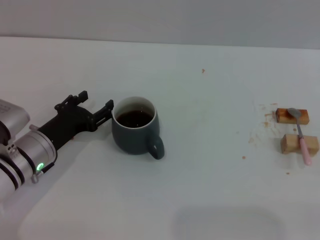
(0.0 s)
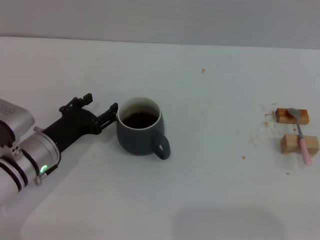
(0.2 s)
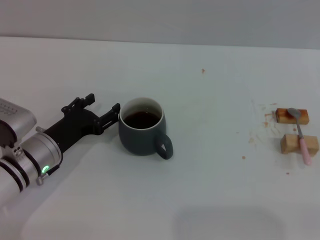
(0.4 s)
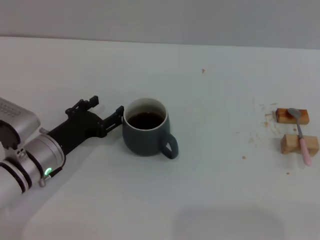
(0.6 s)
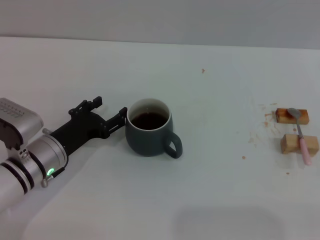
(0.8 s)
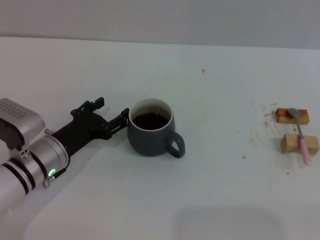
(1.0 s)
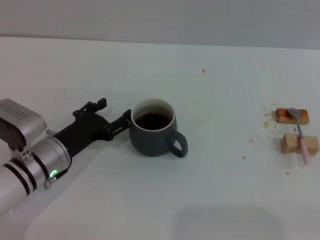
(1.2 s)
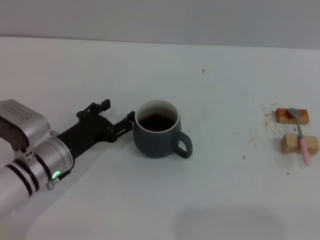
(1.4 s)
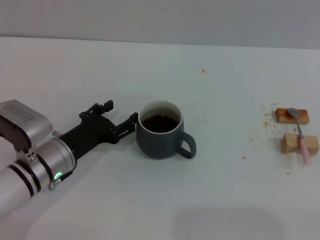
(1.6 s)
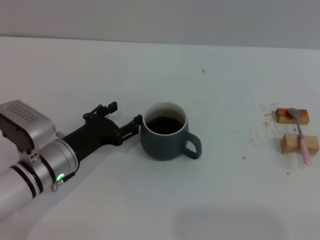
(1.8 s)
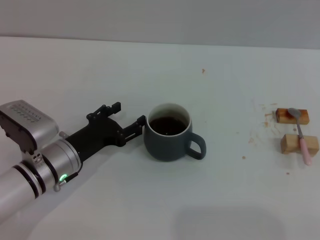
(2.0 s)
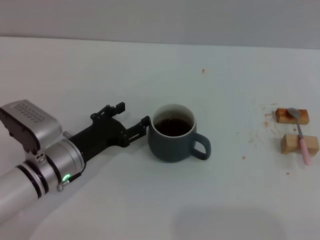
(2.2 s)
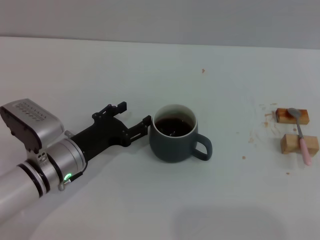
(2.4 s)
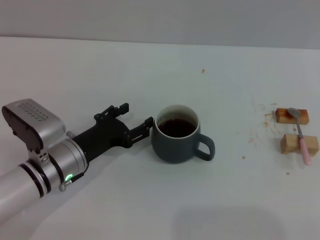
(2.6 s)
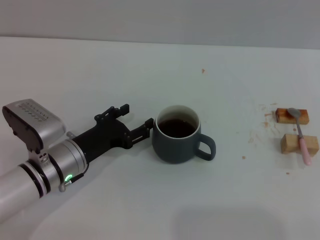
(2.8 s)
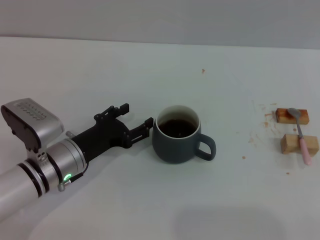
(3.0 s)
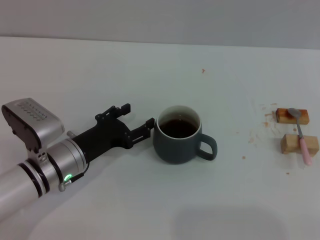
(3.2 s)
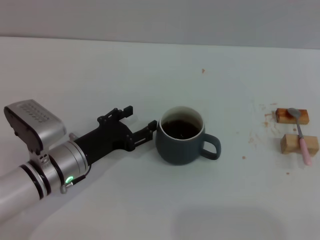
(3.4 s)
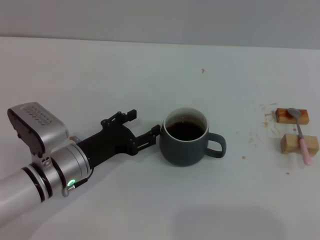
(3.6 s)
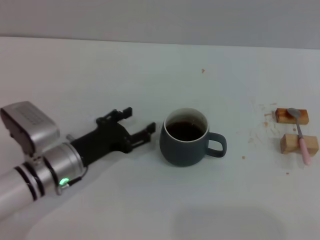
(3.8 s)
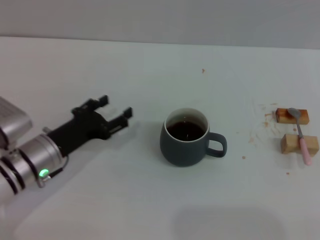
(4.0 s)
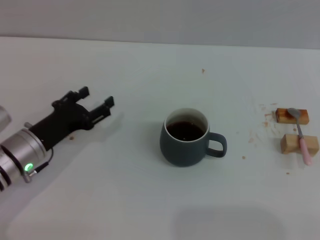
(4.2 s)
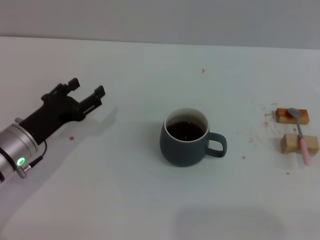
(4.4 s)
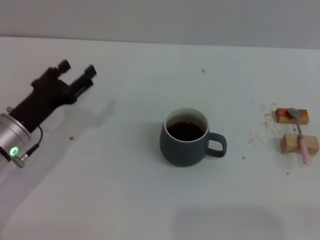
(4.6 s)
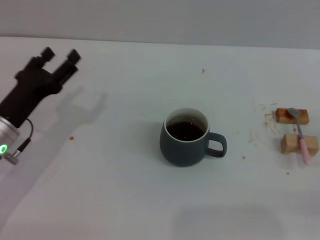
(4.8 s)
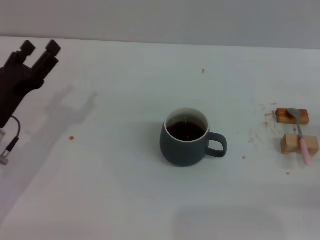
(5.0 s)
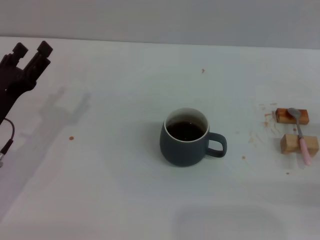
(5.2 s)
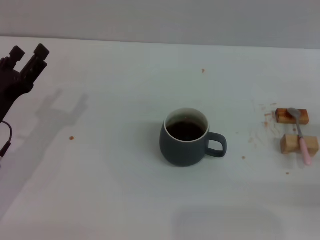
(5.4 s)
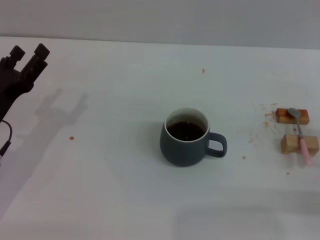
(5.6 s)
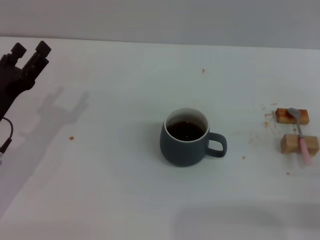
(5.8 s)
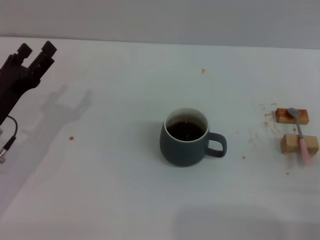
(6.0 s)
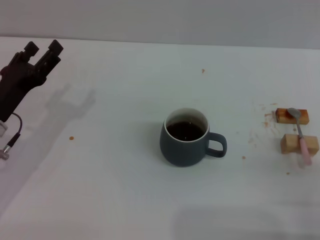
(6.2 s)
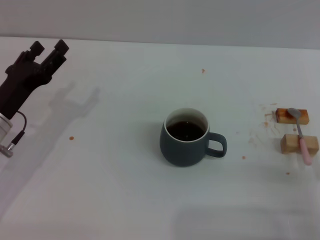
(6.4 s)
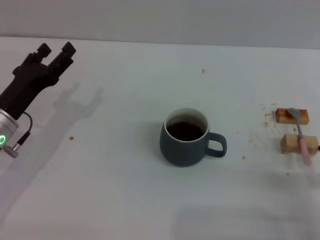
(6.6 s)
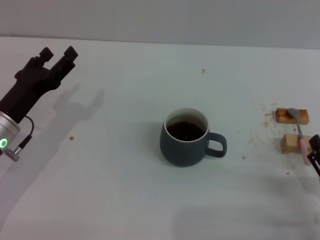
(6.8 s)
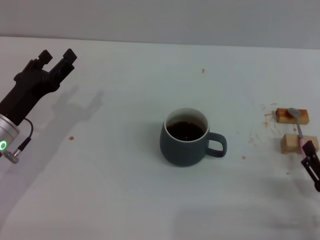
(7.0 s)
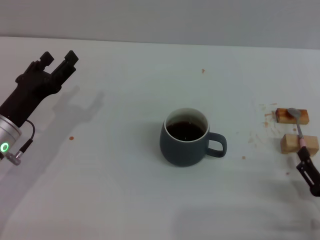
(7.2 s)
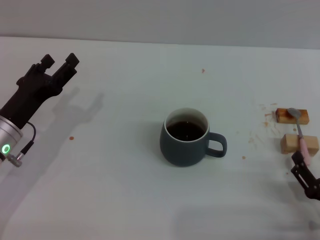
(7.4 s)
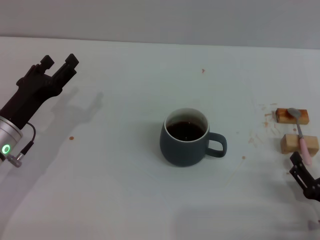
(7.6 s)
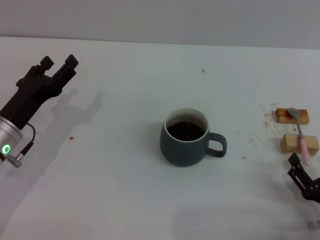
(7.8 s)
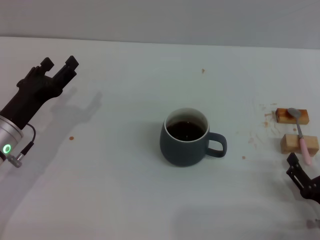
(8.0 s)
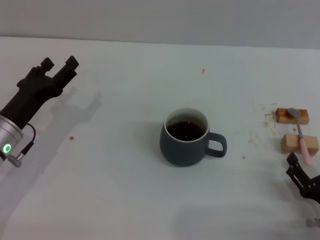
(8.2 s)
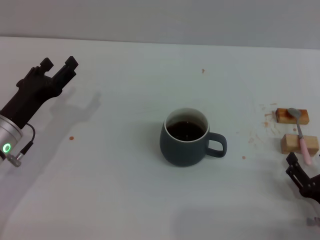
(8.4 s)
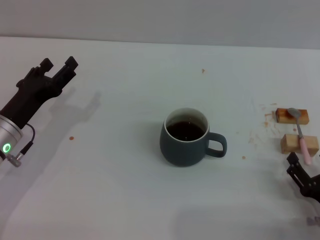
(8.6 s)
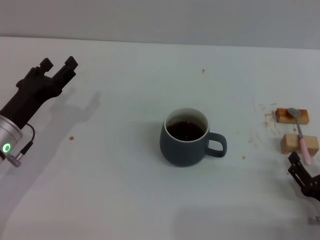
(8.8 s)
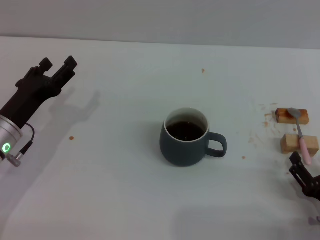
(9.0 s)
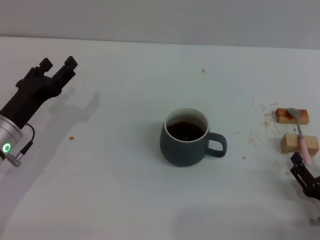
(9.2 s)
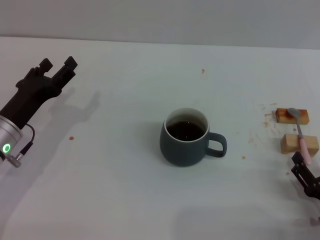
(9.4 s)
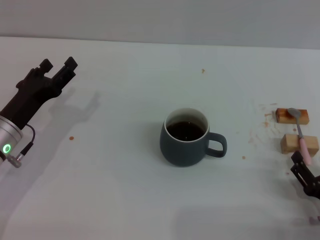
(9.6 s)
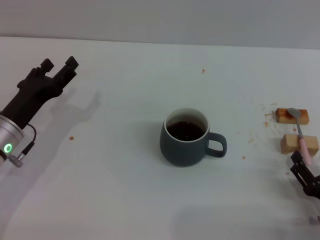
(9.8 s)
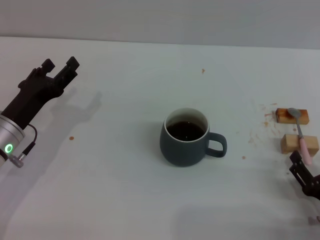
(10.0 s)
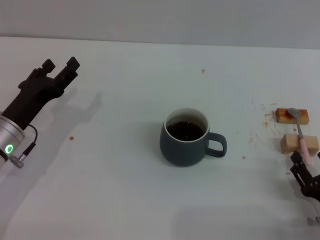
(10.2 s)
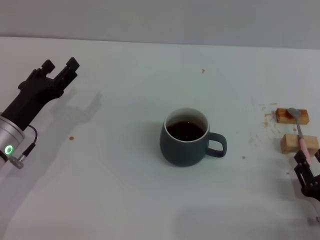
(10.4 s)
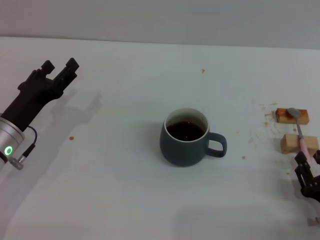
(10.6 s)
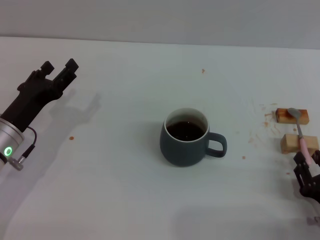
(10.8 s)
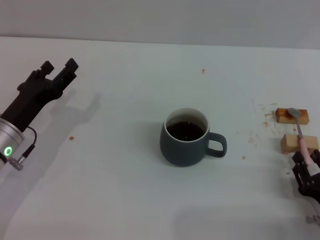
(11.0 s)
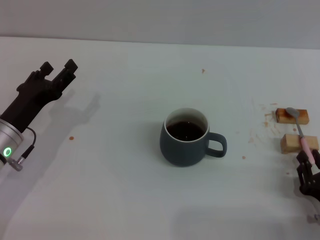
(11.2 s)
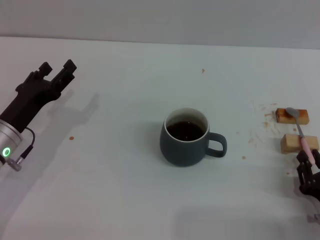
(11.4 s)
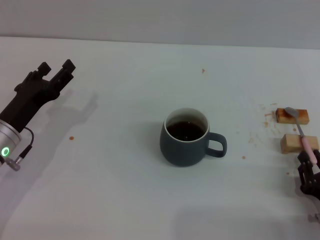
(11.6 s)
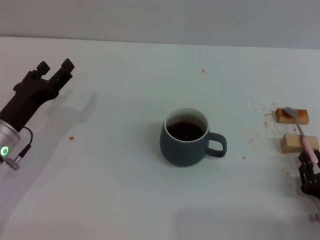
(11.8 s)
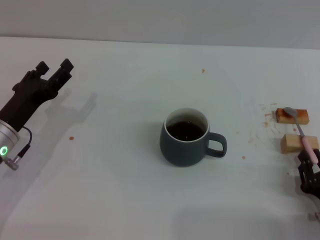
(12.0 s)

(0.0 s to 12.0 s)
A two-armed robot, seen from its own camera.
Task of the whole recording: Move the grey cup to the center, lift the pink spoon, stir it three times in the cup, and put the spoon into the cup.
Step, 0.0 s - 3.8 s: Move the cup with coffee to the center of view with the left gripper.
0.0 s - 3.0 s: There are only small adjustments of the grippers.
3.0 s - 4.4 s: The left gripper moves to the left, approximately 5 cm.
4.4 s - 6.0 s: The right gripper goes some 10 cm to the left.
6.0 s - 7.6 s: The right gripper is displaced to the left by about 5 cm.
7.6 s - 9.0 s: There are only small adjustments of the grippers.
9.0 s - 10.4 s: Neither gripper changes place.
10.4 s - 12.0 s: The right gripper closes up.

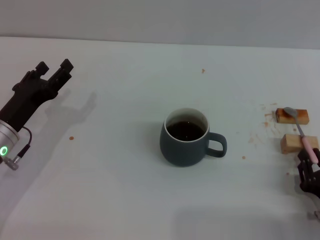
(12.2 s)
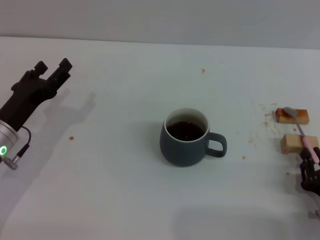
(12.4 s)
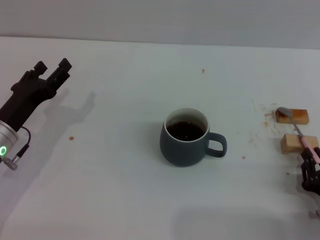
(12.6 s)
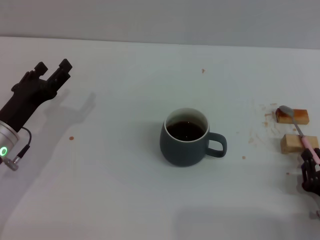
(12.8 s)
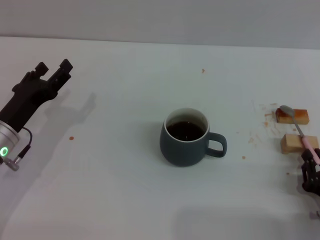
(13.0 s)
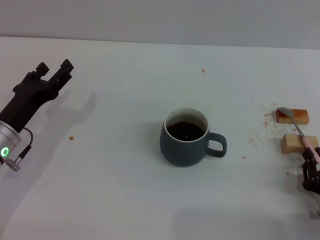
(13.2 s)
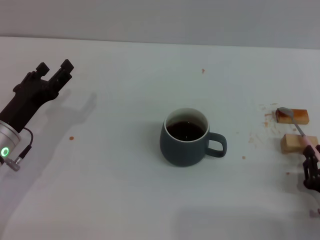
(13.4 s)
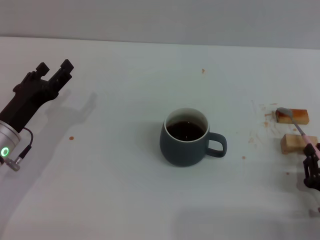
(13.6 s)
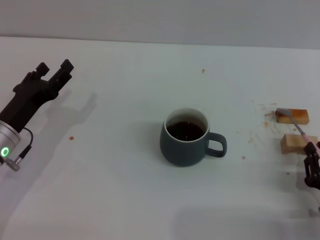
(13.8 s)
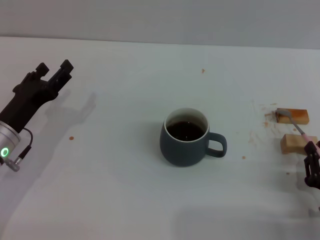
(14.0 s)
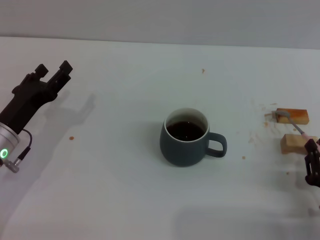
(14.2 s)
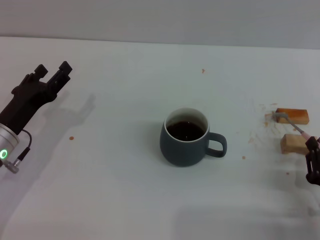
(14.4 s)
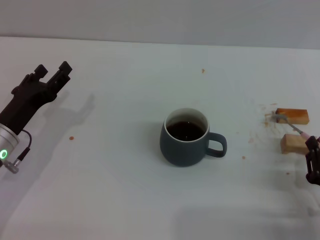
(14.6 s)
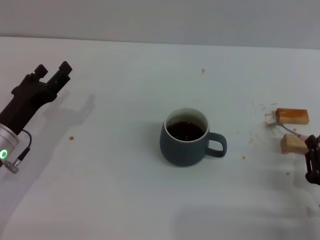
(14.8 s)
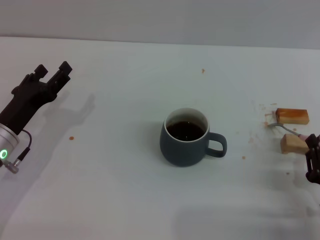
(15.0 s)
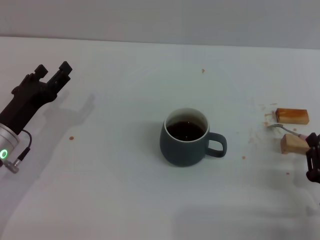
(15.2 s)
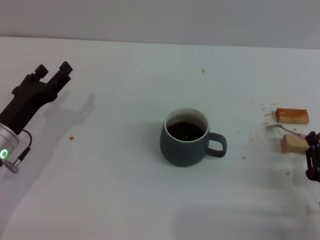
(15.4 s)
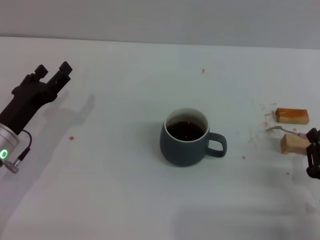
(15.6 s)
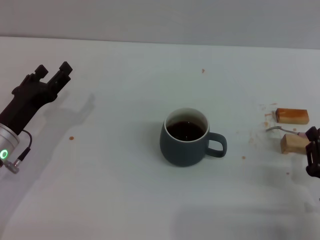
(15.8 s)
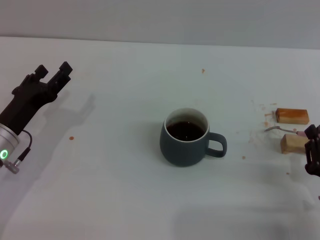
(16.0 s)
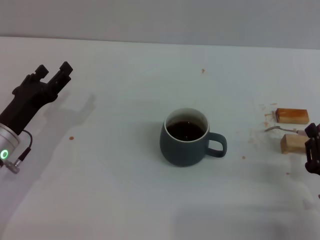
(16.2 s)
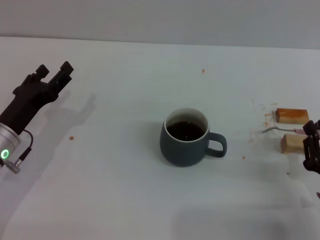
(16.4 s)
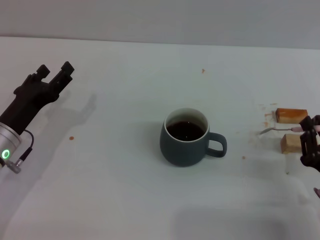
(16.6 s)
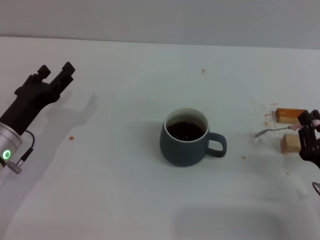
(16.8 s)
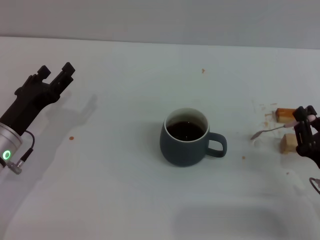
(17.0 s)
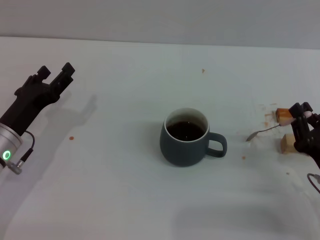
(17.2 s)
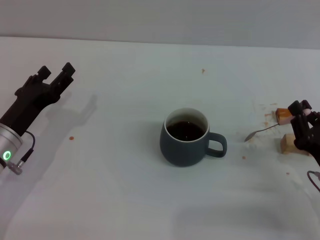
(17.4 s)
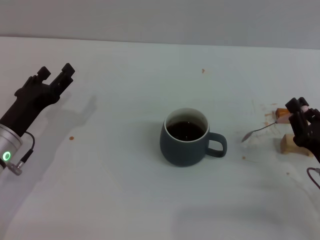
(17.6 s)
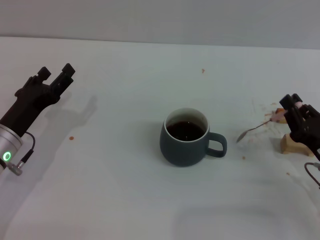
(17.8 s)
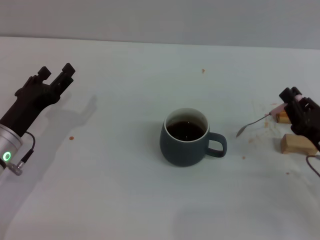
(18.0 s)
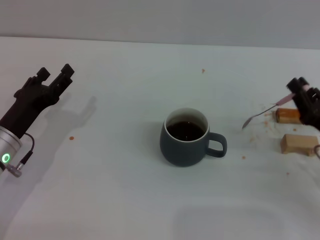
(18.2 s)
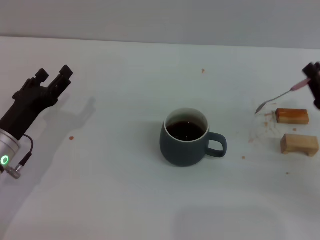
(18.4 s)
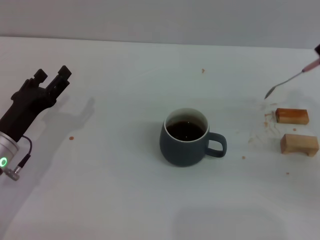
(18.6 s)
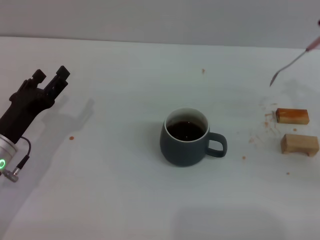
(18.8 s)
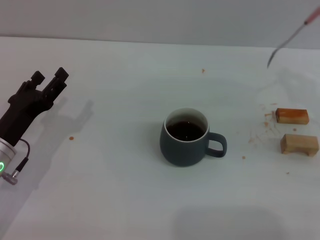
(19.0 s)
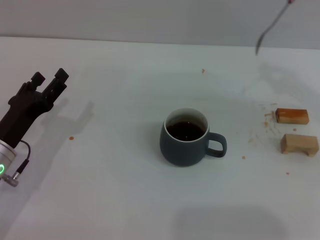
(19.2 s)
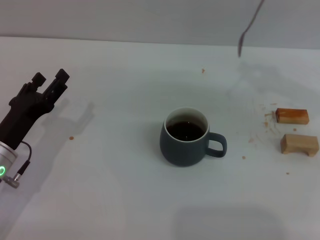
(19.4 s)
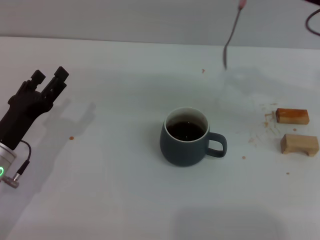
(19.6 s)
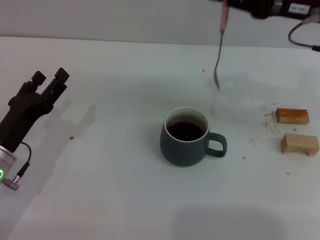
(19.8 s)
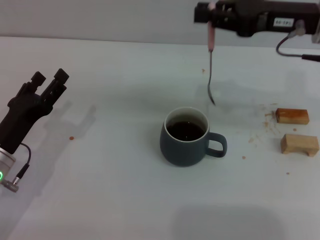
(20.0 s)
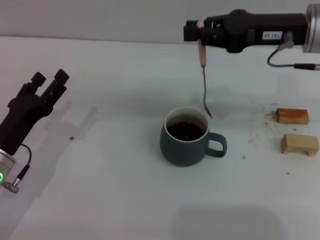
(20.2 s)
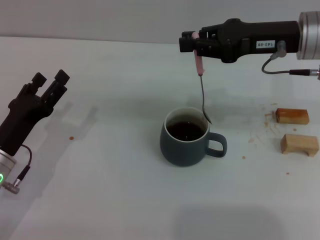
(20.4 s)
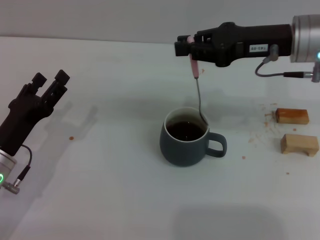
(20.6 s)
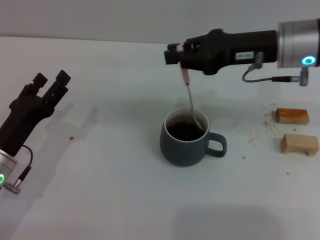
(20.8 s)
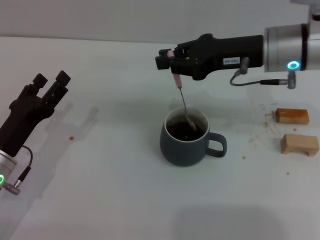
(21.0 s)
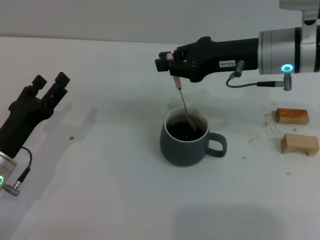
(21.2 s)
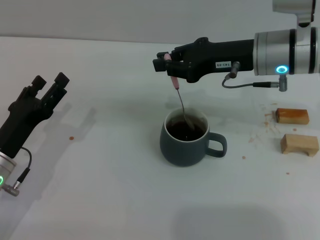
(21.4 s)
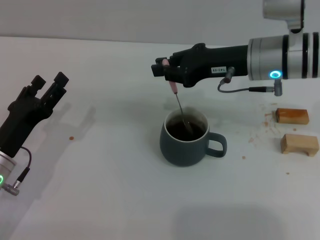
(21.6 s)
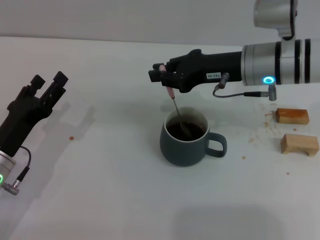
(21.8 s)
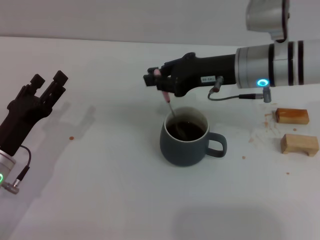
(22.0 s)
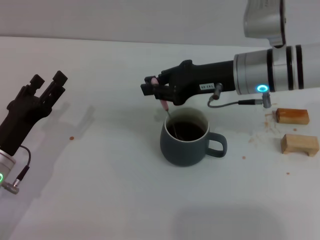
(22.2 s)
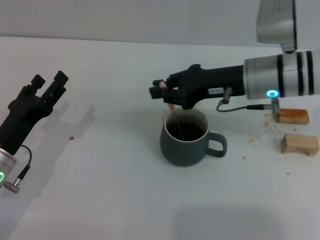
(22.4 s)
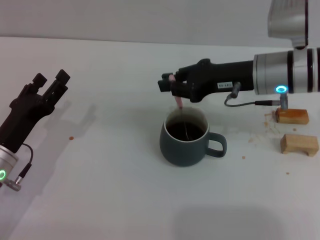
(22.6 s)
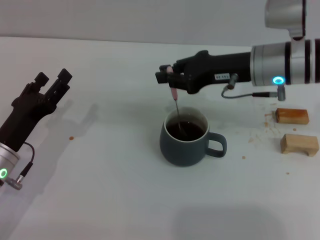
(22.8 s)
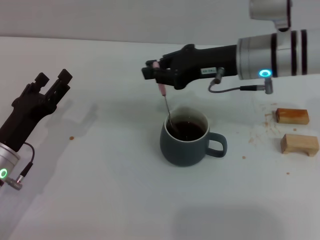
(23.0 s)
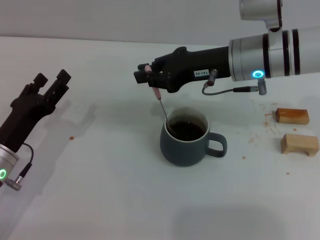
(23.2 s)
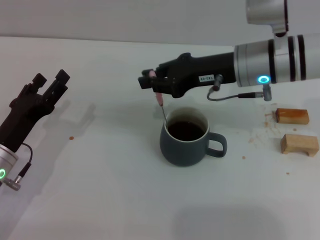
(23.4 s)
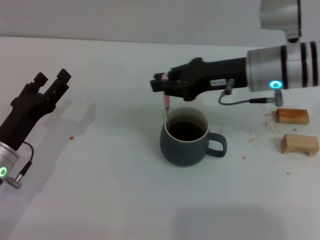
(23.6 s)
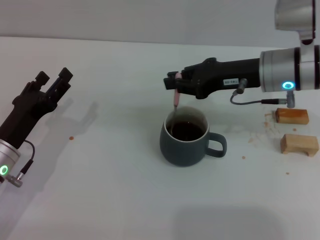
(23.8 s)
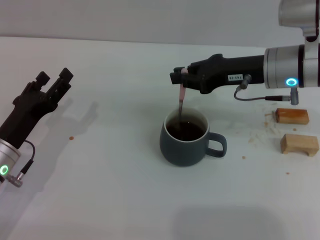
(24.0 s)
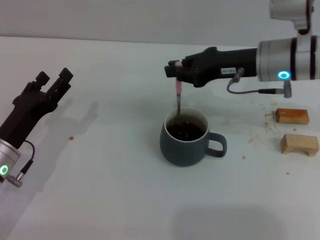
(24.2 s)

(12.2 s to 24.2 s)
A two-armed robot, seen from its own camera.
Task of the whole recording: Move the grey cup to the center, lift the pink spoon, stir it three times in the cup, and put the spoon into the cup.
Step, 12.2 s - 18.4 s: Pick up the spoon with the right gripper.
12.2 s - 13.8 s: Neither gripper changes place.
13.8 s - 16.6 s: There are only small adjustments of the grippers.
16.6 s - 18.2 s: The right gripper moves forward, approximately 5 cm.
18.2 s - 19.8 s: The right gripper shifts roughly 25 cm upward and forward.
19.8 s - 21.2 s: The right gripper moves to the left, approximately 5 cm.
21.2 s - 24.2 s: There are only small adjustments of the grippers.
